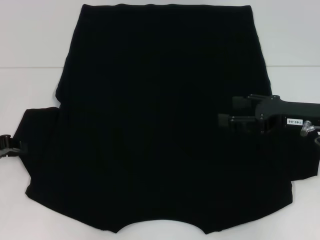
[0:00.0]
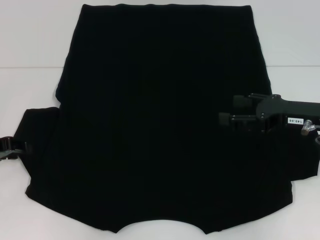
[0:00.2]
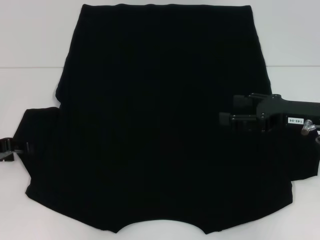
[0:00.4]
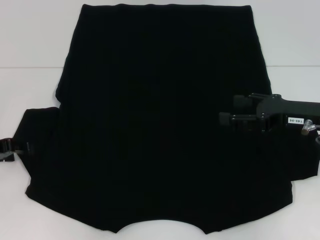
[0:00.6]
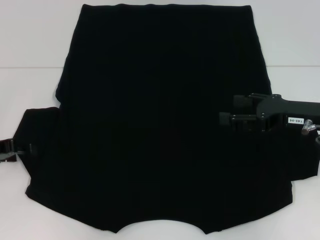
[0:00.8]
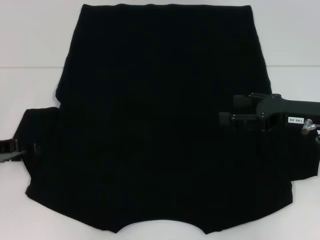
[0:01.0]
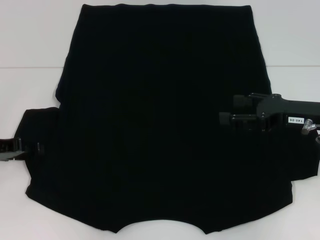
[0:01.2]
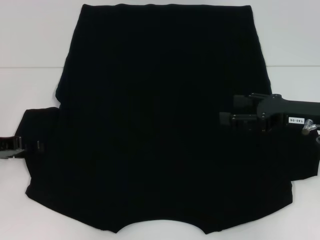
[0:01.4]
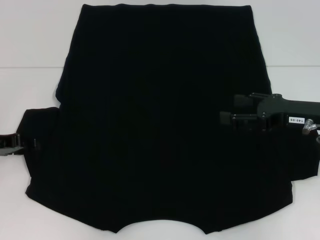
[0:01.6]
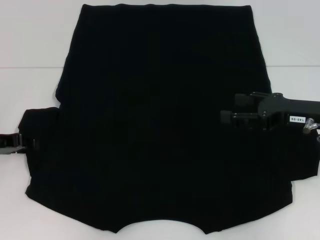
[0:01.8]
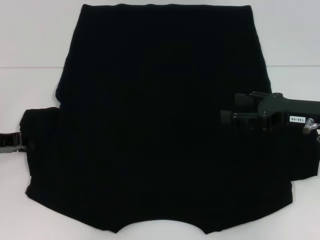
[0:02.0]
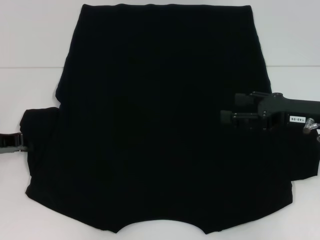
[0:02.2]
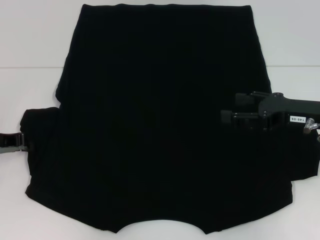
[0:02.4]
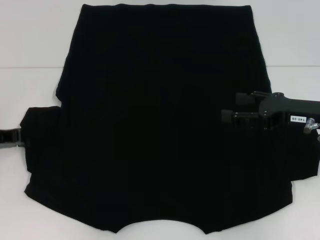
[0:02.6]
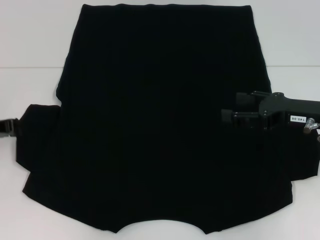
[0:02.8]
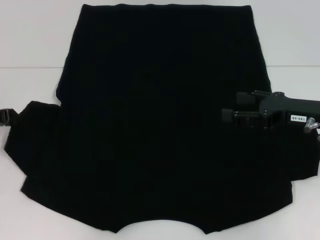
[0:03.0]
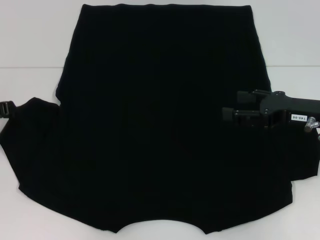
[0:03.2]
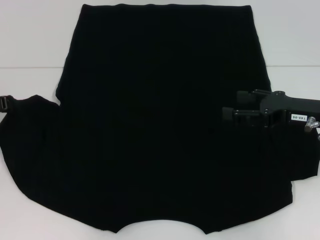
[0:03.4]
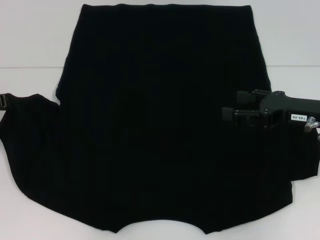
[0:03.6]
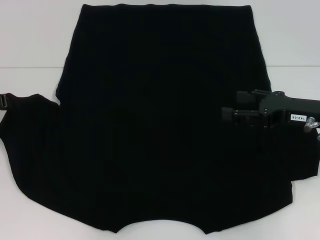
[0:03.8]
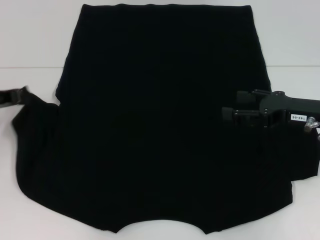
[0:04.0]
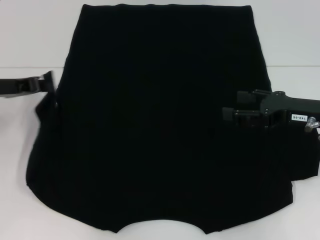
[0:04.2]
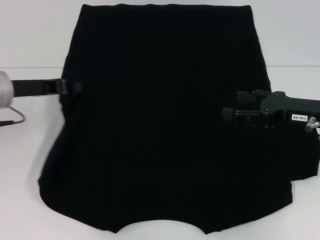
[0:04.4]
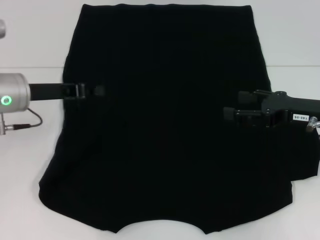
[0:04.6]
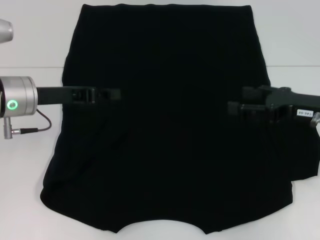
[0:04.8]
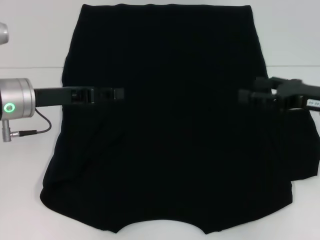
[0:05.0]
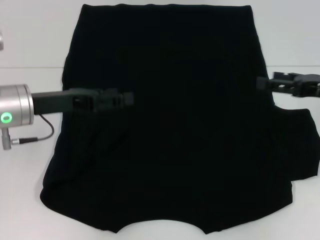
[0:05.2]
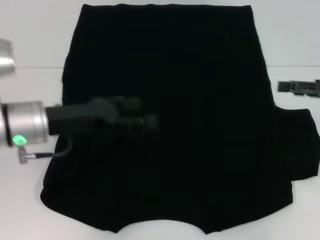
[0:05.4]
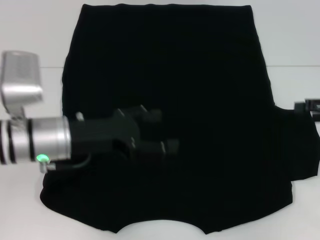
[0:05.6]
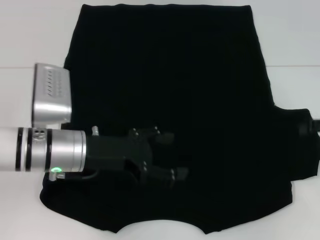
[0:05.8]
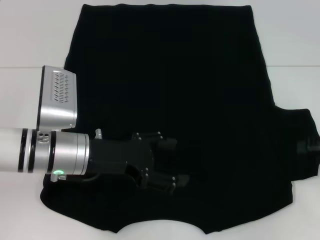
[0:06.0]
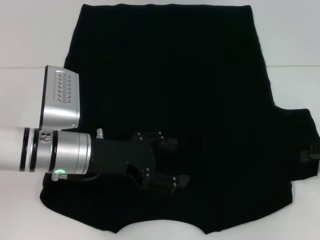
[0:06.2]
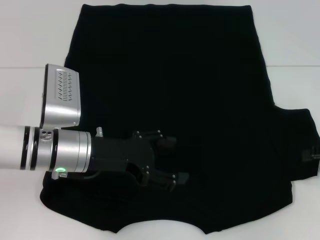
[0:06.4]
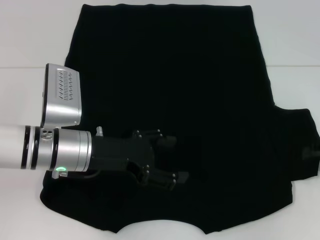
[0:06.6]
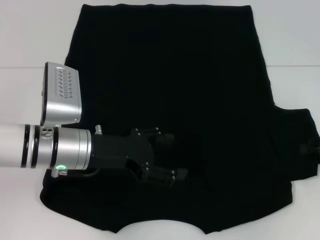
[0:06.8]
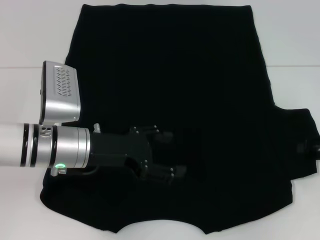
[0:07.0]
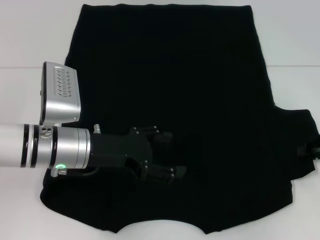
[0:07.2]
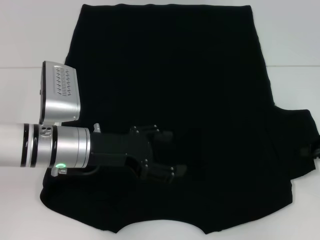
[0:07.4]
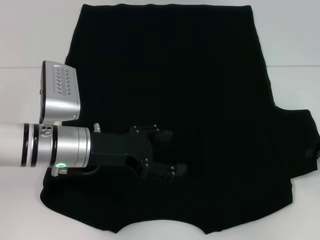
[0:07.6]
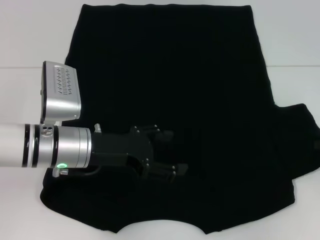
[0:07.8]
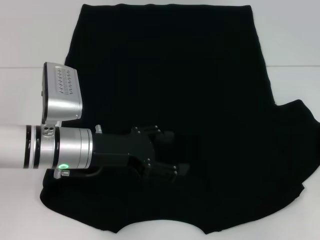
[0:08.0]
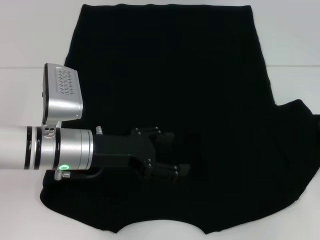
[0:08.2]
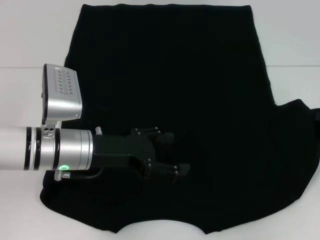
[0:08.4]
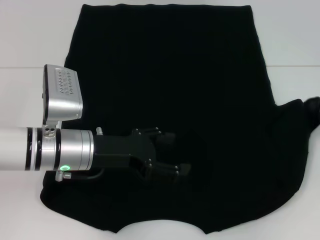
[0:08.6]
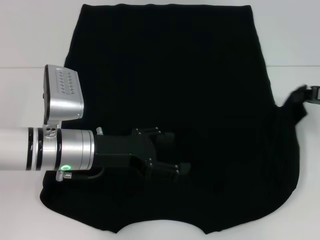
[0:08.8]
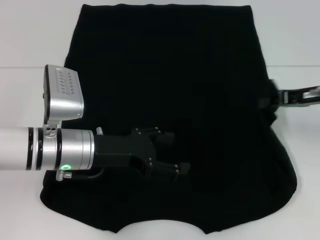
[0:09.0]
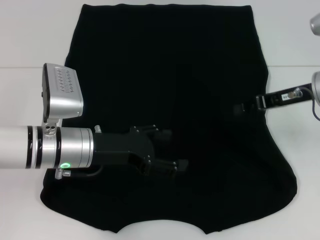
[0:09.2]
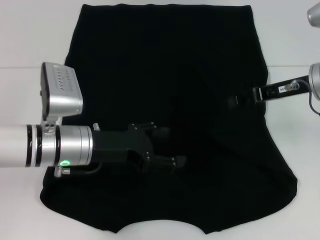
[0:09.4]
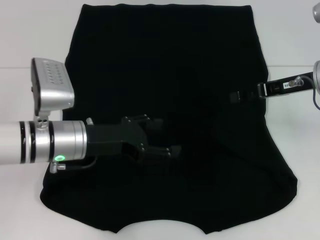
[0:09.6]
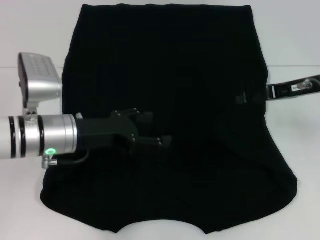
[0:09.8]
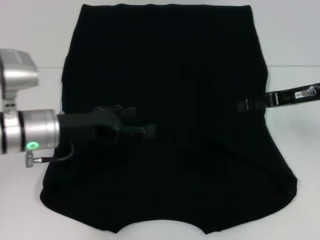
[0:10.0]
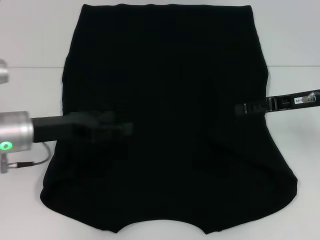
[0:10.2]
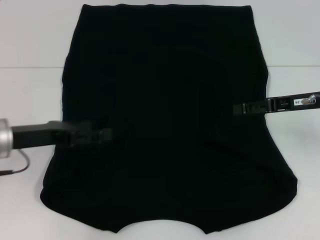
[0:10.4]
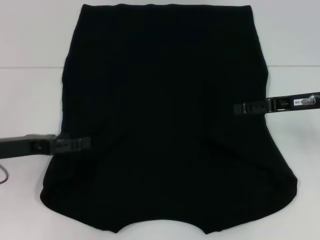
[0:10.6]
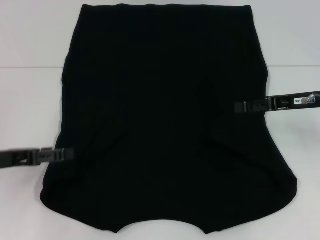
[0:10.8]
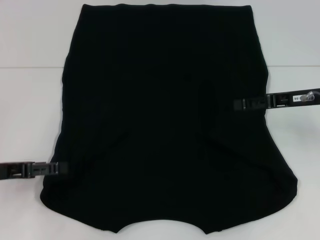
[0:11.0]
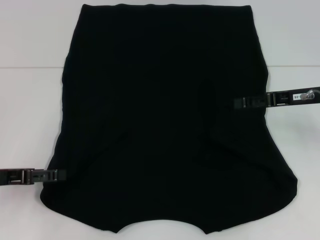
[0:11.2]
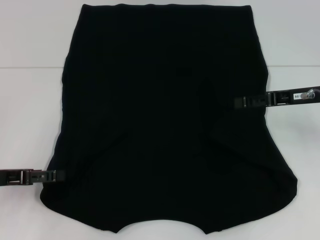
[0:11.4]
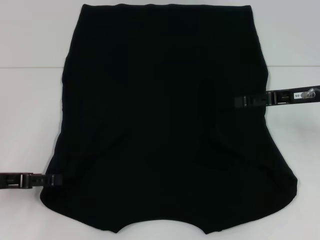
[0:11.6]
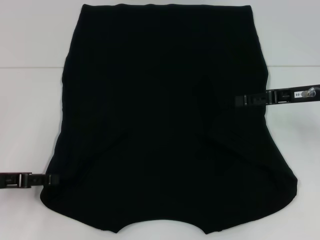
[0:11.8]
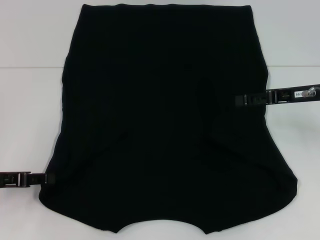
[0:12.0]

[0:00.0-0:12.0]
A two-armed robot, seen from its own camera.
Step, 0:00.0 to 0:04.6: Fold the bottom left sleeve with your left hand.
Step, 0:04.8 to 0:09.2: Fold the bottom right sleeve with your right hand.
0:01.6 to 0:03.0: The left gripper closes its fingers.
0:03.0 to 0:04.4: The left gripper is displaced to the right by approximately 5 cm.
0:04.4 to 0:06.0: The left gripper moves to the right and backward, approximately 10 cm, and opens its fingers, while the right gripper goes about 10 cm to the right.
0:07.6 to 0:09.0: The right gripper is displaced to the left and forward by some 10 cm.
0:09.0 to 0:10.4: The left gripper travels to the left by about 10 cm. The right gripper opens up.
0:10.4 to 0:12.0: The left gripper is displaced to the left by some 5 cm.

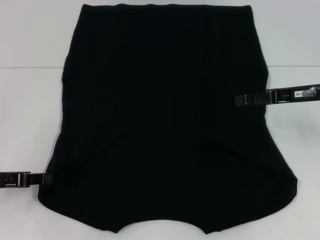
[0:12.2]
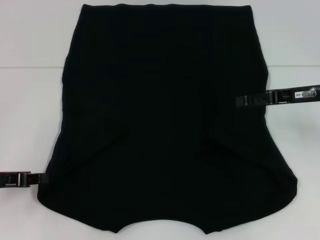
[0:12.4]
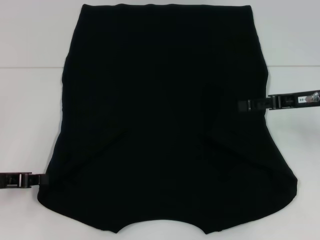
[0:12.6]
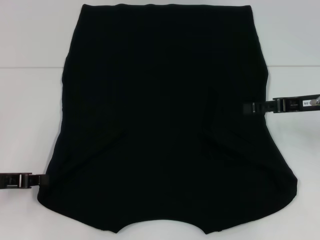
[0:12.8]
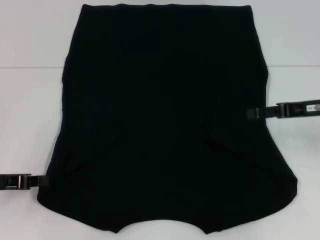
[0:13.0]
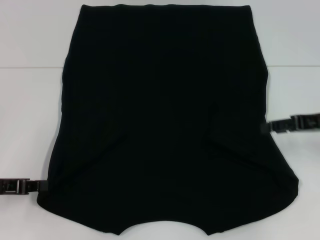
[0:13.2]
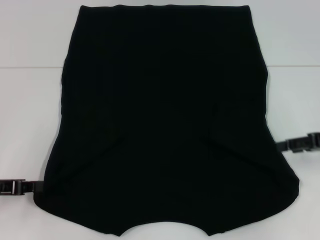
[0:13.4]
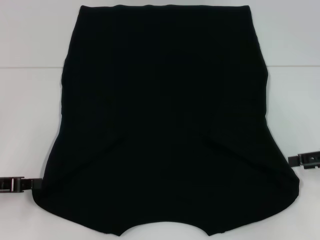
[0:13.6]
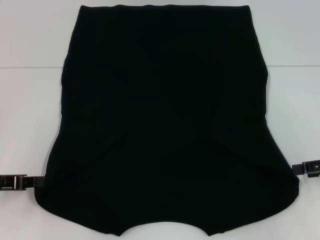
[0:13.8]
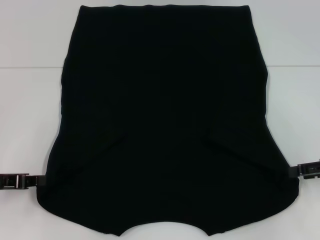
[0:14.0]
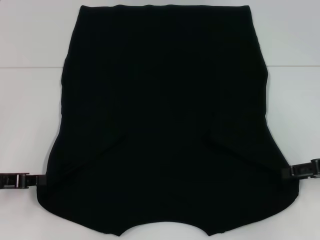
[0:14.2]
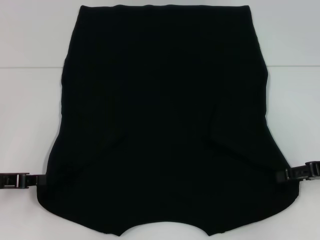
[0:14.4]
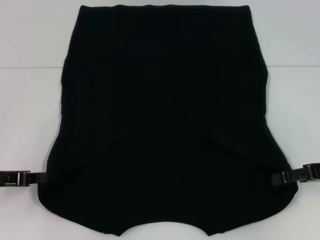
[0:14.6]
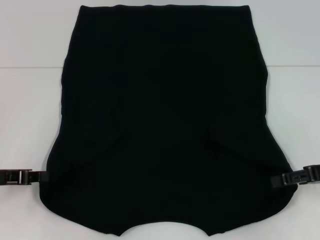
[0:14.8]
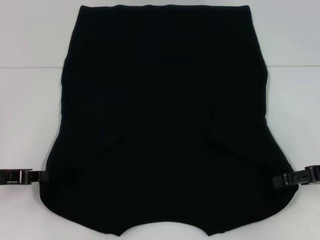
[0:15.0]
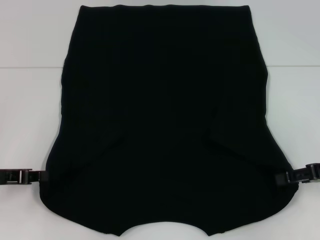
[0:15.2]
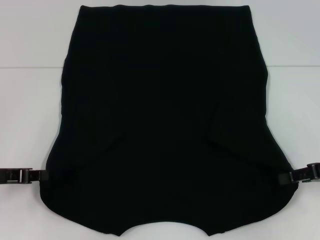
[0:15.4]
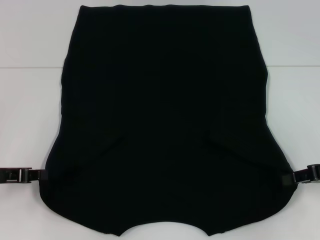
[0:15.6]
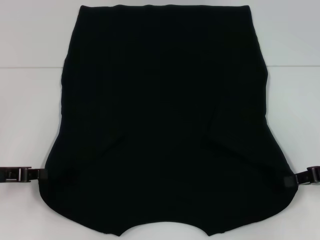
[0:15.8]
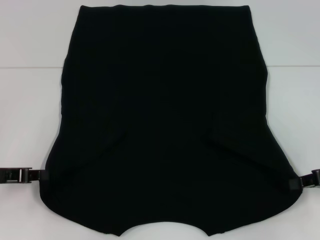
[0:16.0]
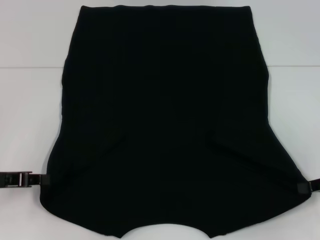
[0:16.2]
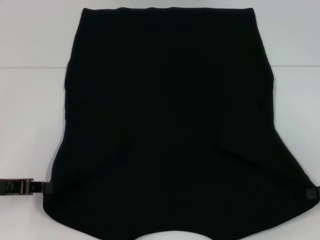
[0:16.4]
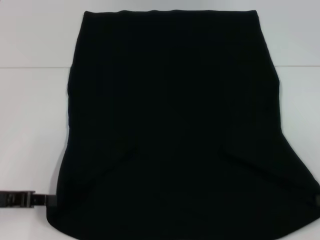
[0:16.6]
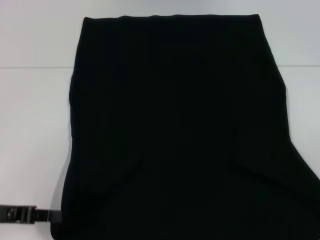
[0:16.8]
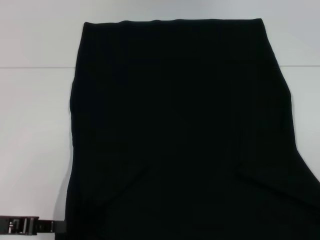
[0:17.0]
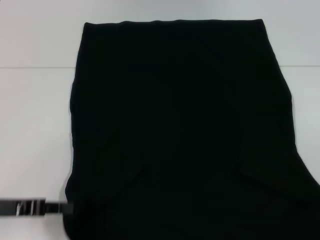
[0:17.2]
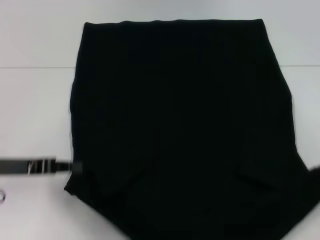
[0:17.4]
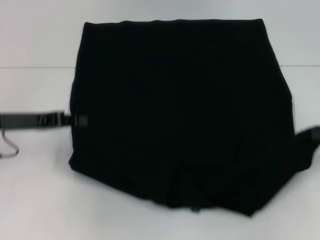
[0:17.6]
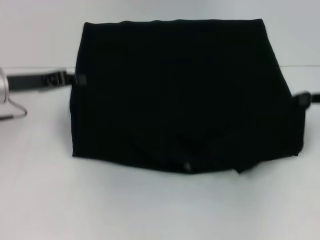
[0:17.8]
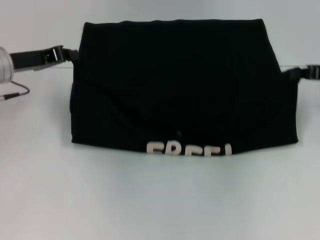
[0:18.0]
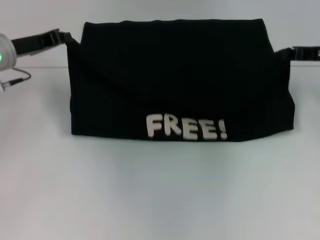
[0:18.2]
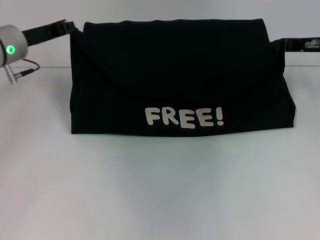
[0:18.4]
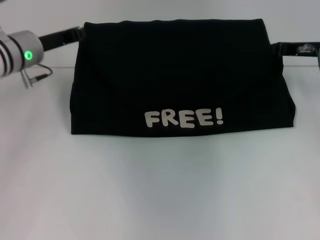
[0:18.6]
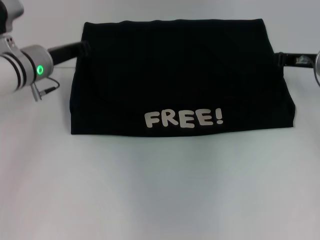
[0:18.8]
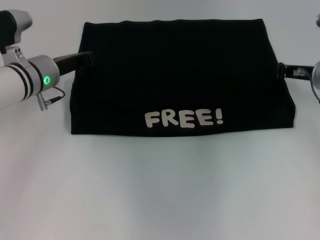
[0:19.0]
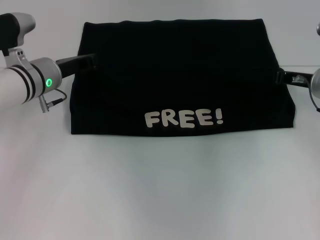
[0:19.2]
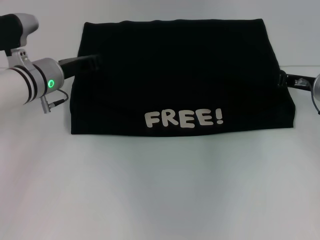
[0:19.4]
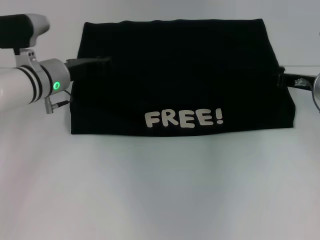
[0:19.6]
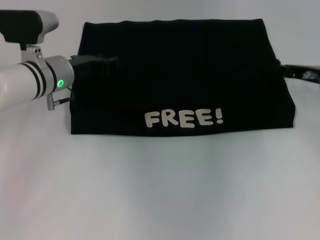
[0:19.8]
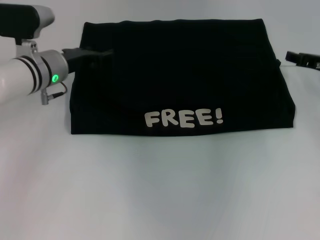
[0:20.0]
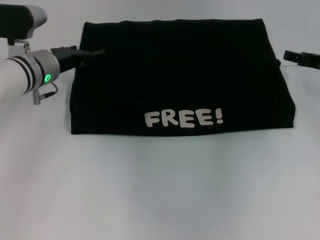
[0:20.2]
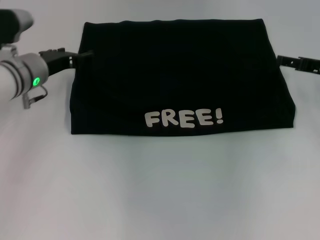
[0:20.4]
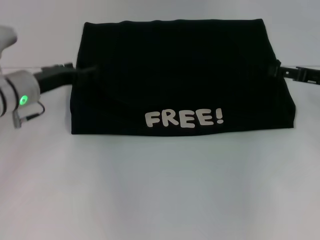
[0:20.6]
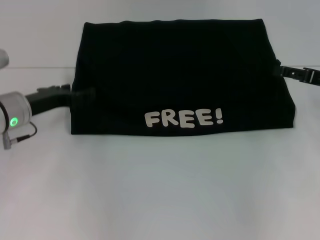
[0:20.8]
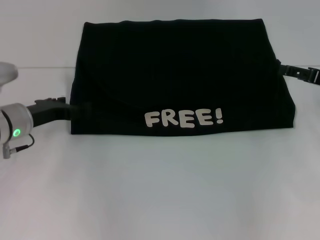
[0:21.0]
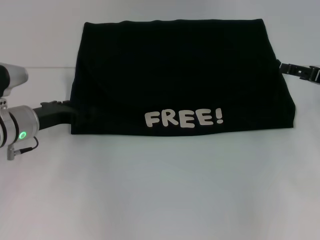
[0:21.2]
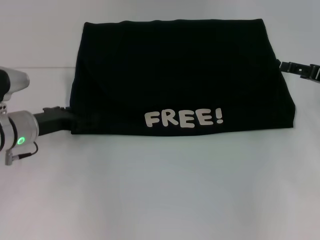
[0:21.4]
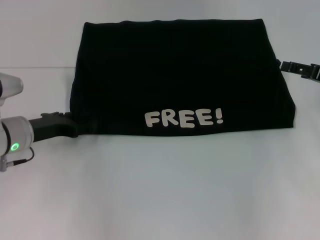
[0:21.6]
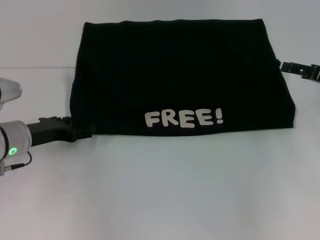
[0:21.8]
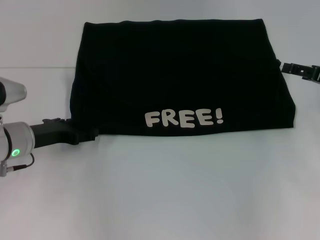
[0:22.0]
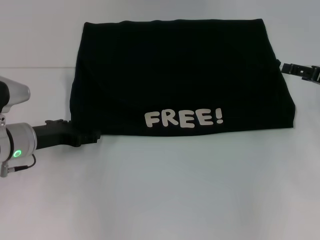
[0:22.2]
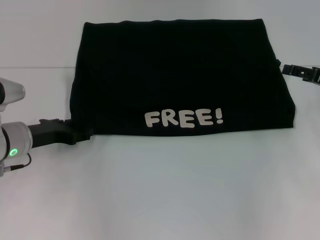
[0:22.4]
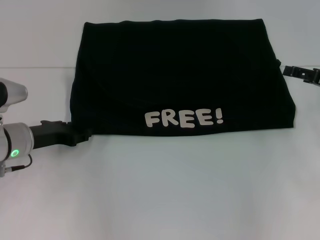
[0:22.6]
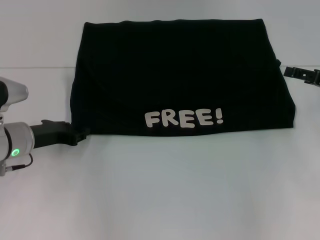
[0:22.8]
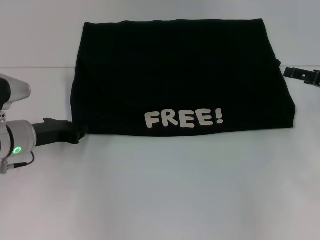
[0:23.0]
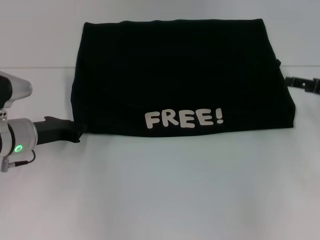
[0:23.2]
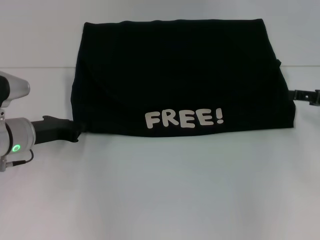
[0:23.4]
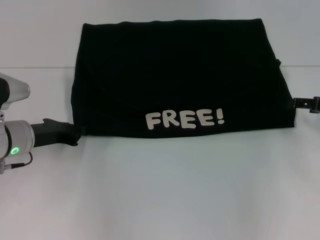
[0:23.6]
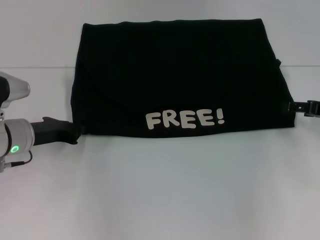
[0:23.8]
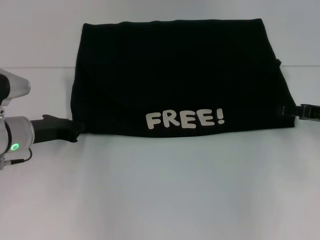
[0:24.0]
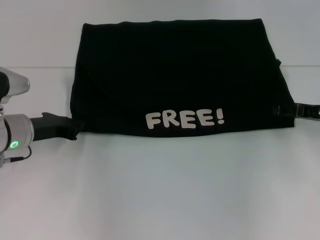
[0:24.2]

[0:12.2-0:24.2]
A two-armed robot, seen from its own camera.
Step, 0:13.2 to 0:16.0: Grab the bottom right corner with your right hand.
Step, 0:16.2 to 0:19.8: Fold the clothes with your left hand.
Step, 0:16.2 to 0:19.8: Fold the clothes with your right hand.
0:12.2 to 0:13.8: The left gripper closes, while the right gripper travels to the right and backward by roughly 10 cm.
0:13.8 to 0:15.2: There are only small adjustments of the grippers.
0:15.2 to 0:16.6: The right gripper shifts by about 5 cm, and closes.
0:16.6 to 0:18.2: The left gripper travels forward and upward by some 20 cm. Meanwhile the right gripper is displaced forward, to the left and upward by about 20 cm.
0:18.2 to 0:19.8: The right gripper goes about 5 cm downward, while the left gripper heads to the right, covering approximately 10 cm.
0:19.8 to 0:21.2: The right gripper shifts by some 5 cm, and opens its fingers. Meanwhile the left gripper moves backward and to the left, about 10 cm, and opens its fingers.
0:21.2 to 0:22.6: The grippers stay close to where they were, moving slightly.
0:22.6 to 0:24.2: The left gripper closes up.